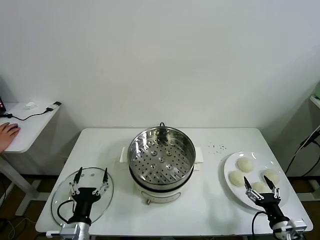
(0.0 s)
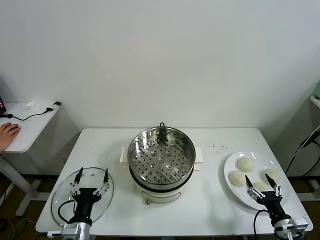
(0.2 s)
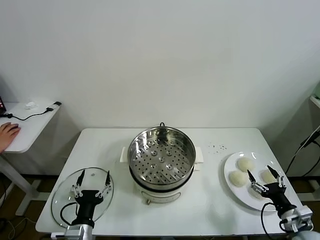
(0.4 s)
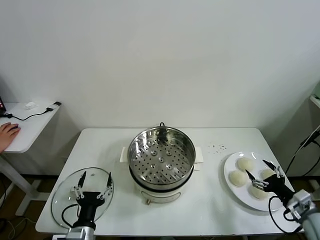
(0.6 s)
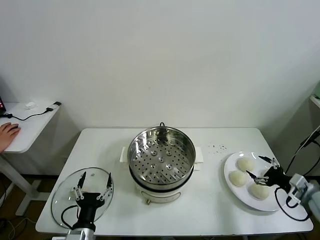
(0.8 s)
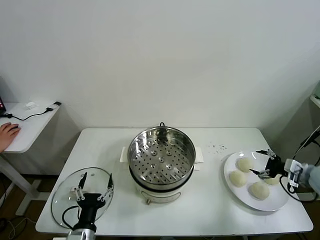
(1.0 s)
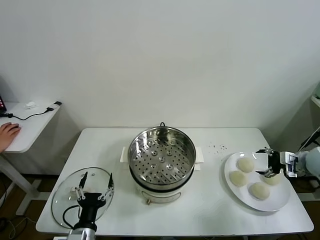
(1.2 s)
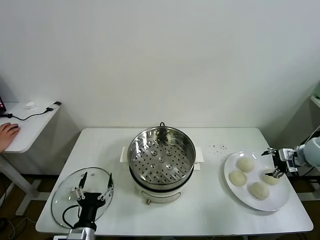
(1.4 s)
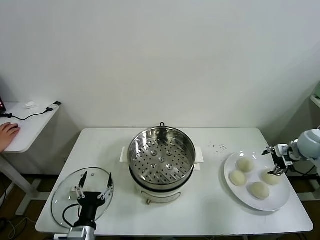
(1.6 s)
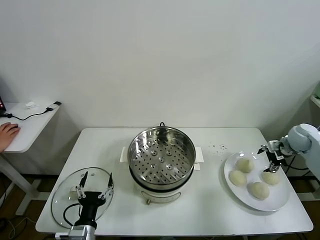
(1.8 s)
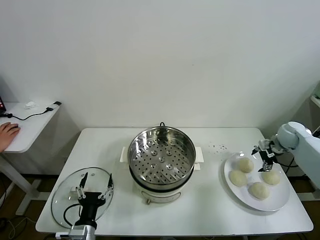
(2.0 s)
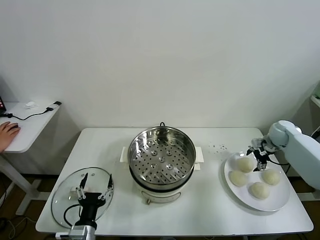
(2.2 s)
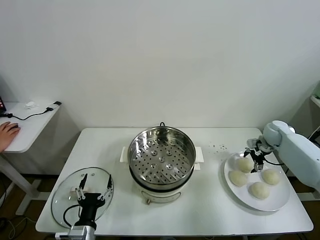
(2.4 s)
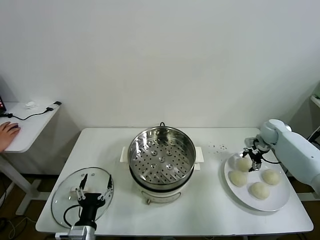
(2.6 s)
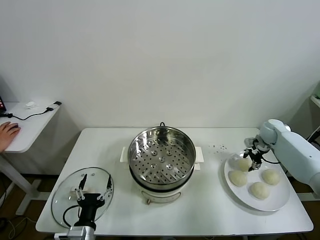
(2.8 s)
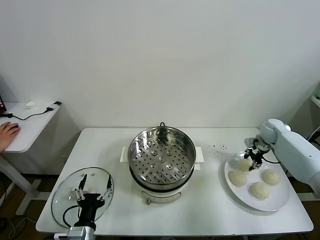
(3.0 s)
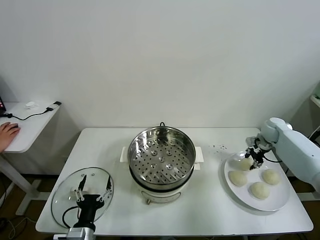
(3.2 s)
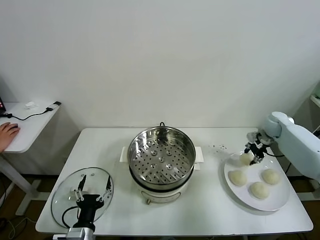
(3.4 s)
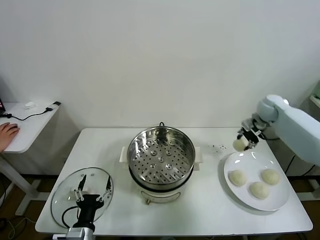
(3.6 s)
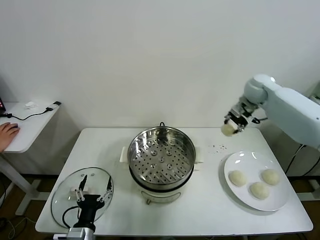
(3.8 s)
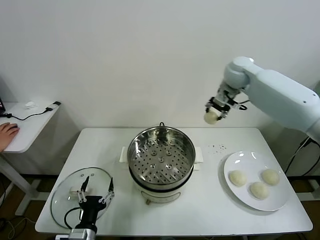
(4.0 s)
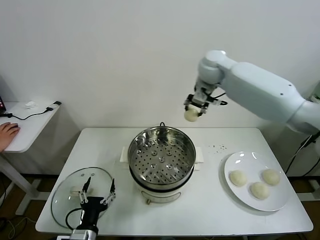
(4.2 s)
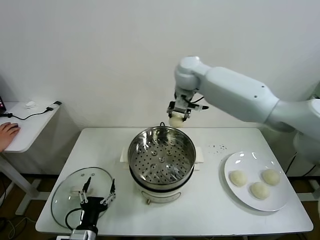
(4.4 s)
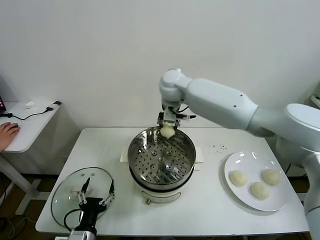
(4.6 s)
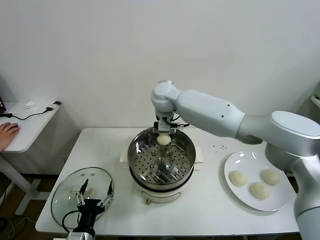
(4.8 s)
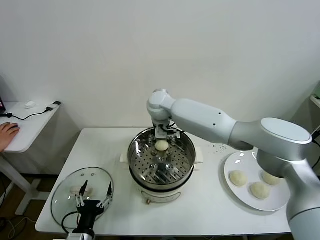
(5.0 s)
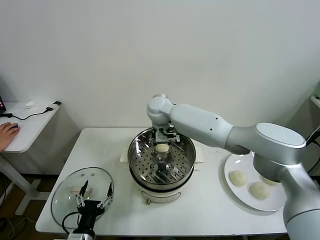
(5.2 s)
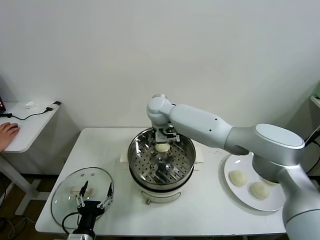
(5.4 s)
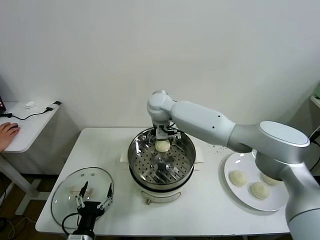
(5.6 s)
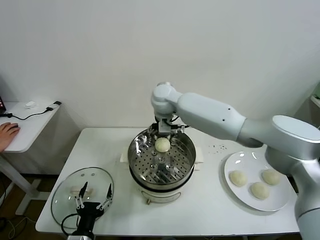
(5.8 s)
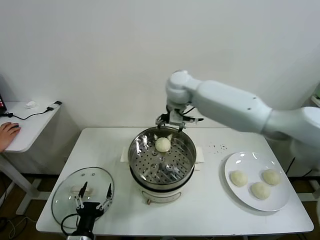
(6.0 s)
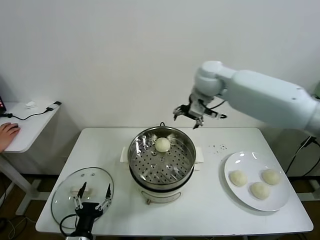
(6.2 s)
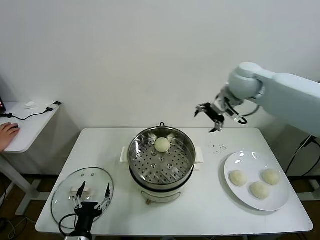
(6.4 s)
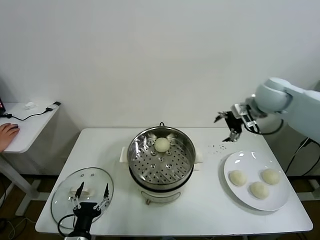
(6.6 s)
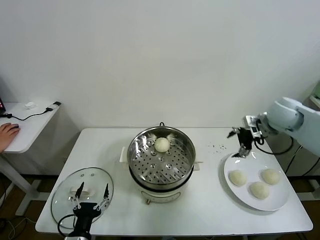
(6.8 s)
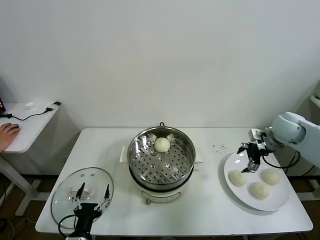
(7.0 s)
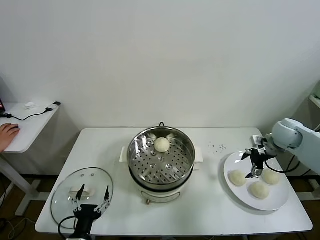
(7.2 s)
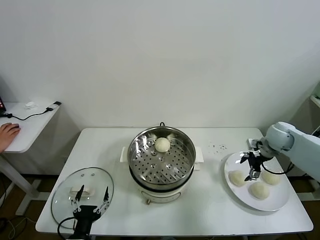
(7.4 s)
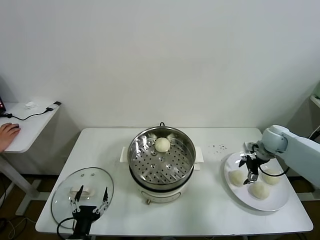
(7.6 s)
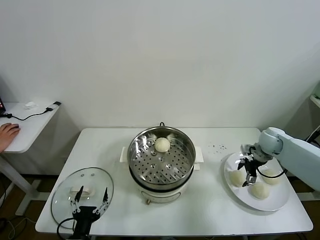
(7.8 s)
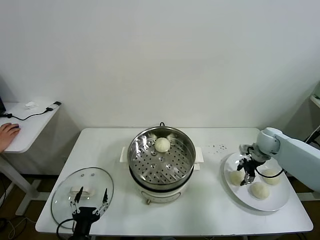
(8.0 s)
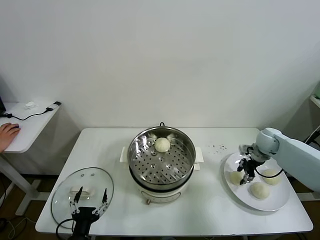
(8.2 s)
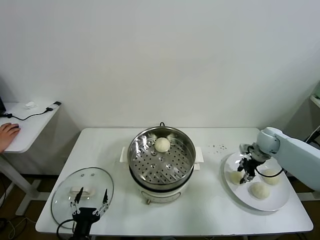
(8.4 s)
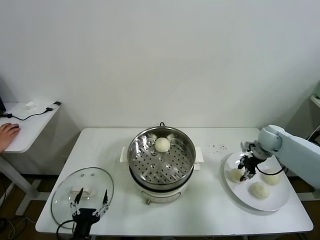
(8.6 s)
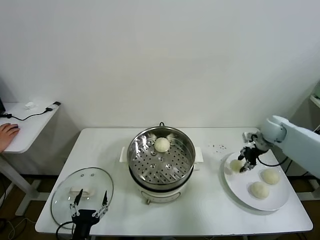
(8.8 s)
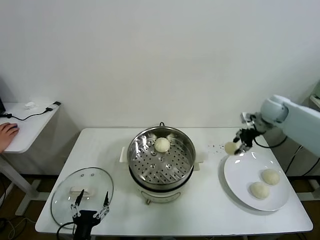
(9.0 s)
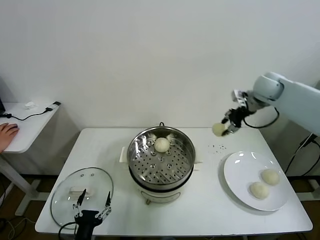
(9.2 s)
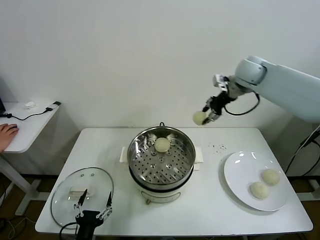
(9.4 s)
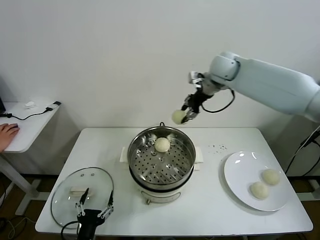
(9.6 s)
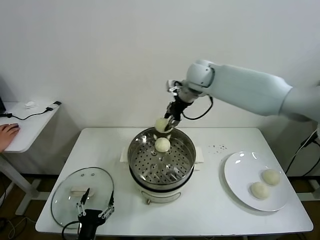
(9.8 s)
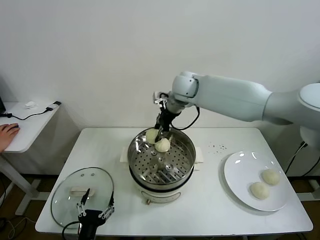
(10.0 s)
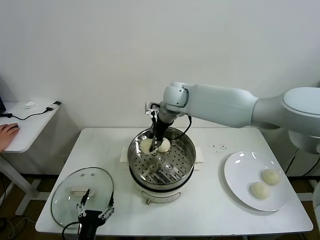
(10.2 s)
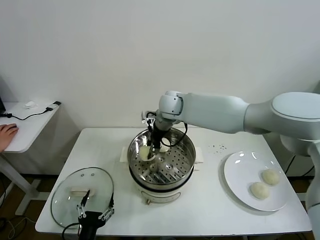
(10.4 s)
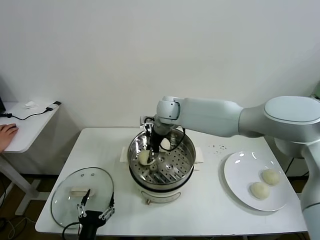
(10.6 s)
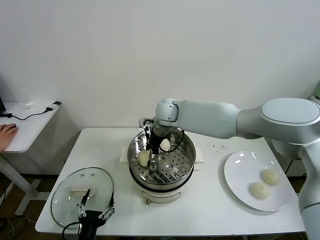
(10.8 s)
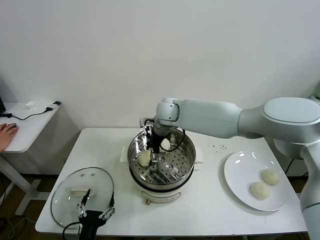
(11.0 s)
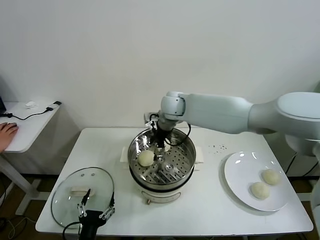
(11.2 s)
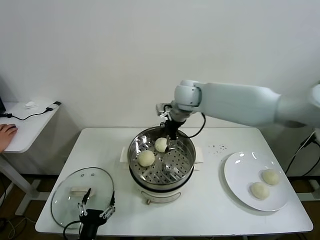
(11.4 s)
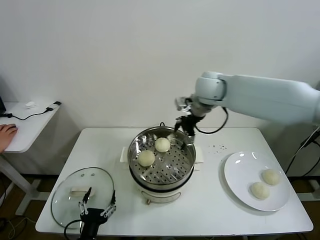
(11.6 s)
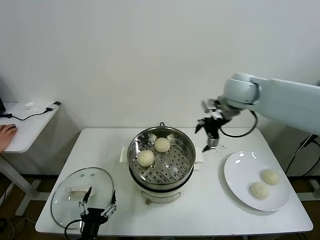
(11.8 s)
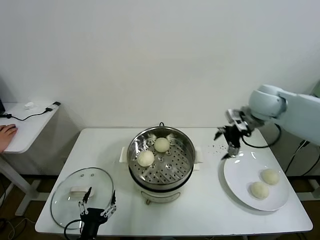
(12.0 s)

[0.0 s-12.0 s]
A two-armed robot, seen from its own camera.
Task of the whole recording: take steamed baozi put them in steamer.
Step, 0.0 to 2.8 s: Grasp the baozi in the plate with right gripper.
Step, 3.0 to 5.4 s: Place the baozi on the steamer with right gripper.
Step, 5.6 to 8.0 s: Grasp the baozi in the plate with right gripper.
Step, 8.2 to 11.0 s: Place the baozi on the steamer with right gripper.
1.6 to 3.0 s: The right gripper is displaced forward and to the left by approximately 10 cm, and closes up.
3.0 to 4.4 s: The right gripper moves to the left and upward, roughly 50 cm.
4.4 to 6.0 s: The right gripper travels downward and back again, approximately 10 cm each way, and opens up.
6.0 to 7.6 s: The right gripper travels to the right and downward by approximately 40 cm.
7.6 to 9.0 s: The right gripper goes some 15 cm upward and forward, and closes.
9.0 to 10.4 s: The right gripper travels to the left by some 35 cm.
10.4 to 12.0 s: The right gripper goes approximately 30 cm to the right, and opens up.

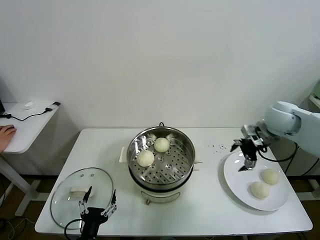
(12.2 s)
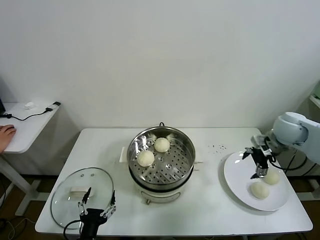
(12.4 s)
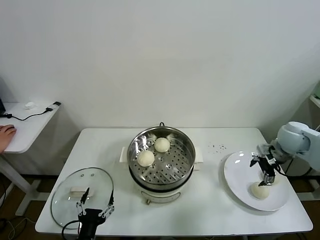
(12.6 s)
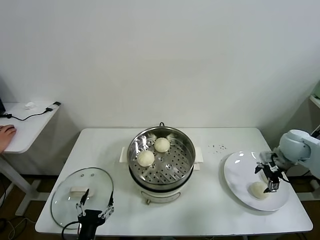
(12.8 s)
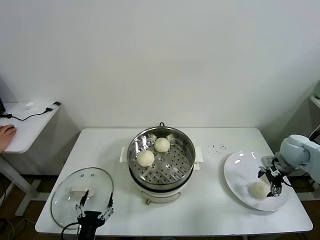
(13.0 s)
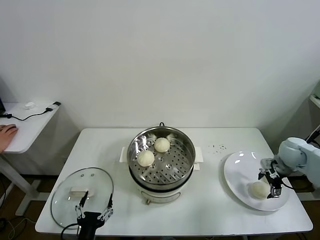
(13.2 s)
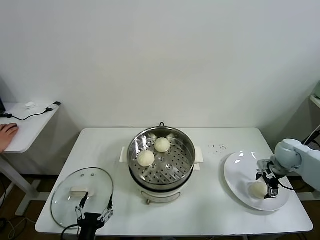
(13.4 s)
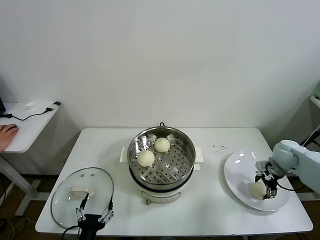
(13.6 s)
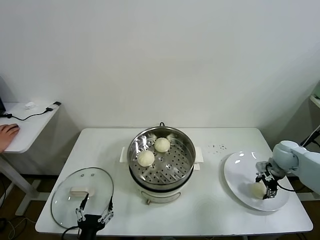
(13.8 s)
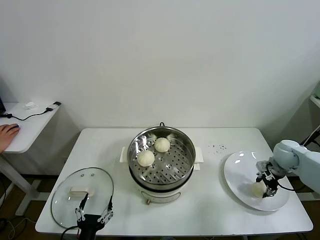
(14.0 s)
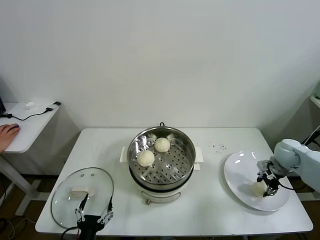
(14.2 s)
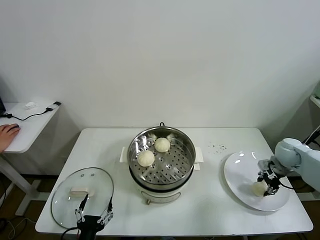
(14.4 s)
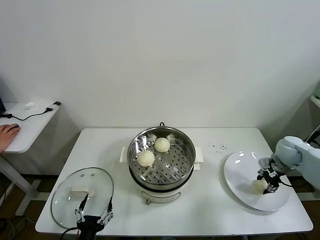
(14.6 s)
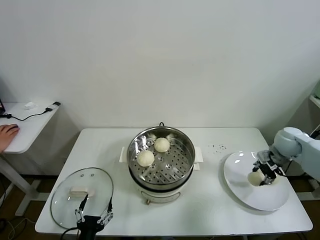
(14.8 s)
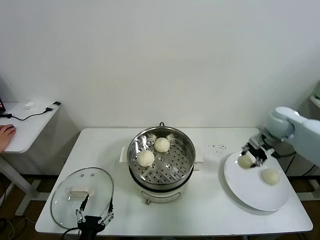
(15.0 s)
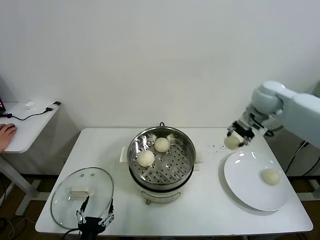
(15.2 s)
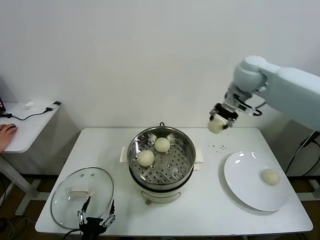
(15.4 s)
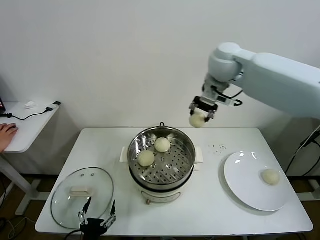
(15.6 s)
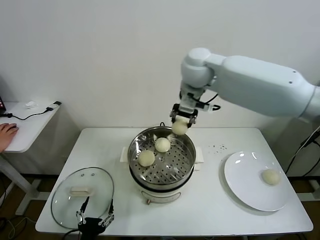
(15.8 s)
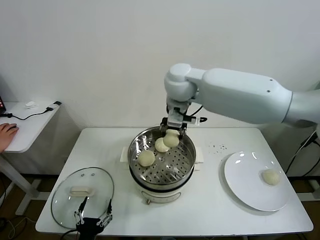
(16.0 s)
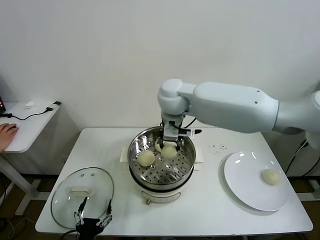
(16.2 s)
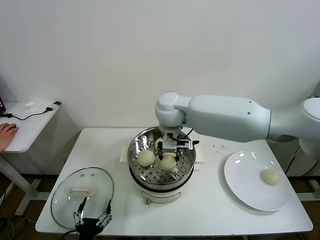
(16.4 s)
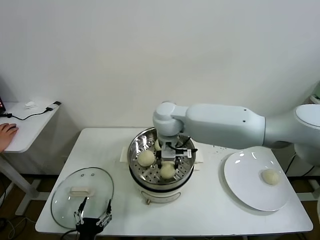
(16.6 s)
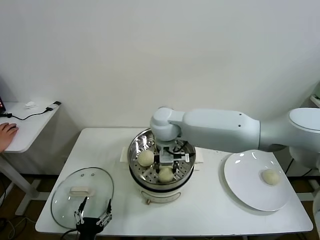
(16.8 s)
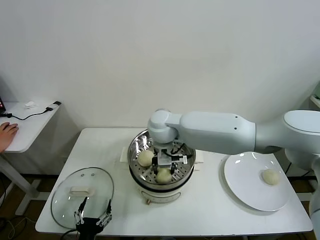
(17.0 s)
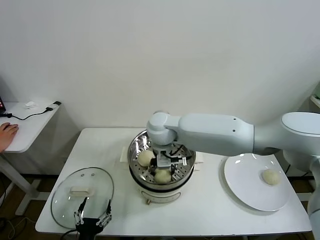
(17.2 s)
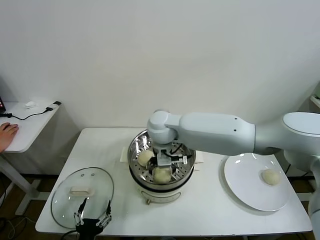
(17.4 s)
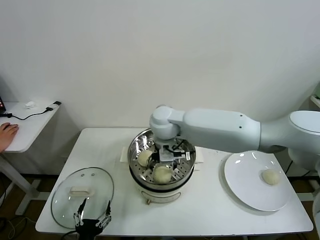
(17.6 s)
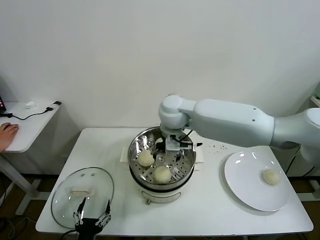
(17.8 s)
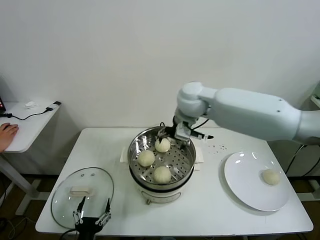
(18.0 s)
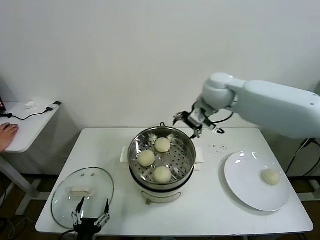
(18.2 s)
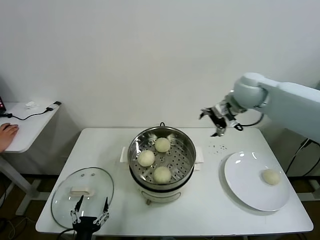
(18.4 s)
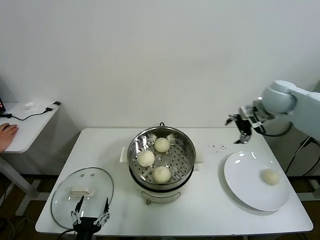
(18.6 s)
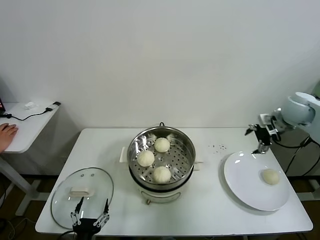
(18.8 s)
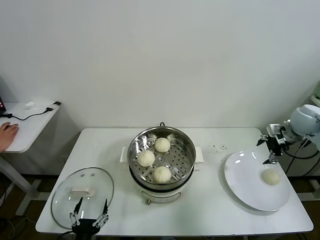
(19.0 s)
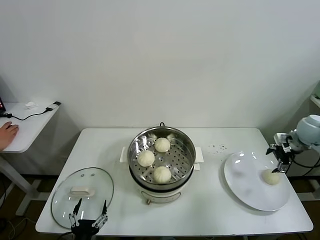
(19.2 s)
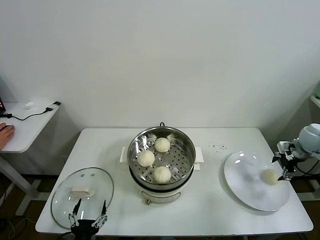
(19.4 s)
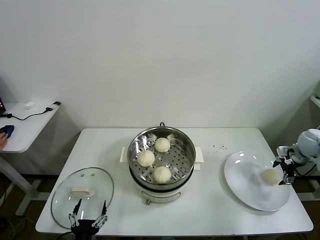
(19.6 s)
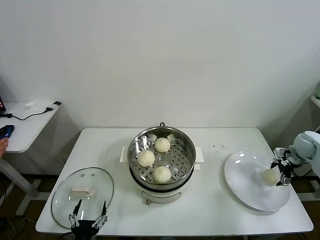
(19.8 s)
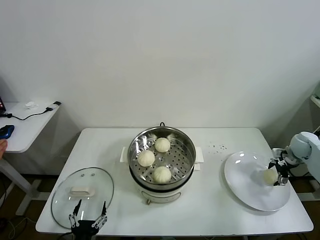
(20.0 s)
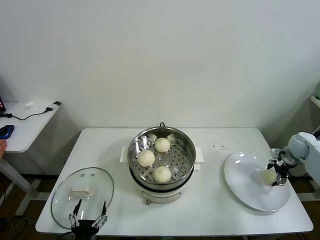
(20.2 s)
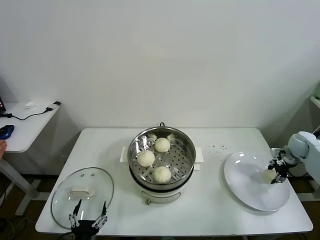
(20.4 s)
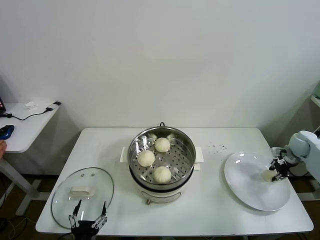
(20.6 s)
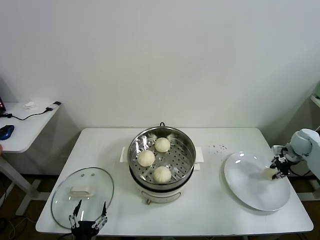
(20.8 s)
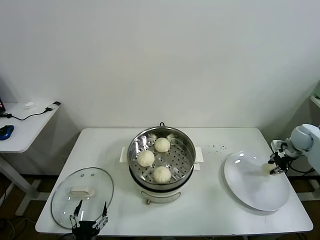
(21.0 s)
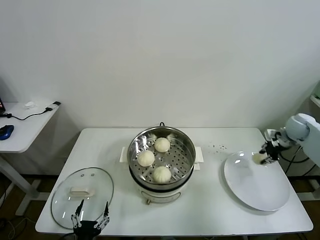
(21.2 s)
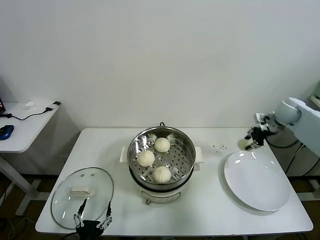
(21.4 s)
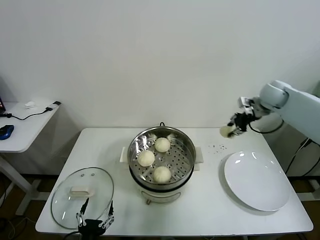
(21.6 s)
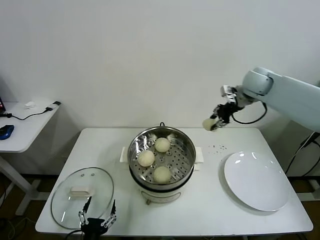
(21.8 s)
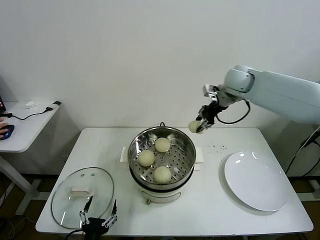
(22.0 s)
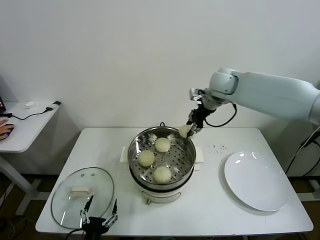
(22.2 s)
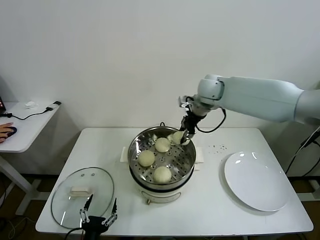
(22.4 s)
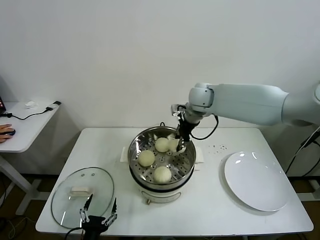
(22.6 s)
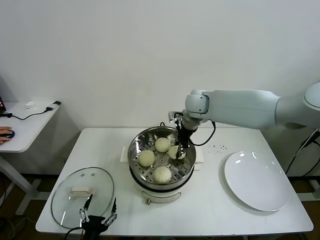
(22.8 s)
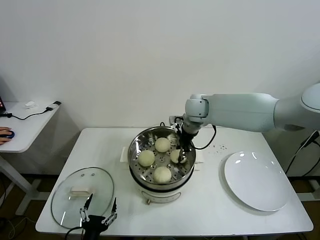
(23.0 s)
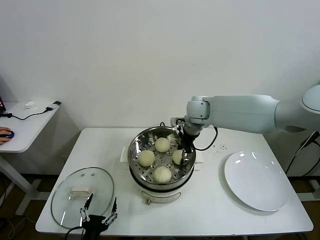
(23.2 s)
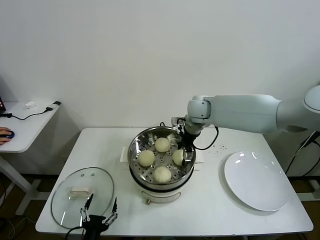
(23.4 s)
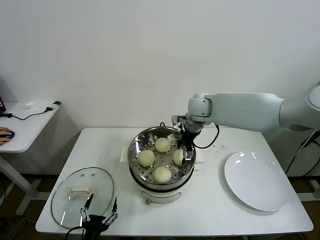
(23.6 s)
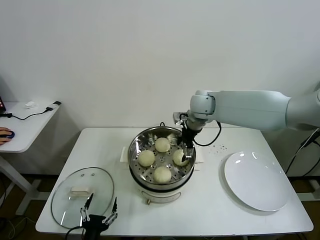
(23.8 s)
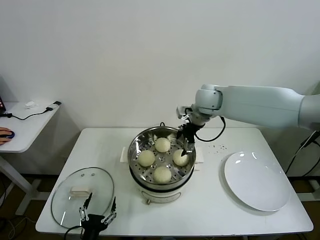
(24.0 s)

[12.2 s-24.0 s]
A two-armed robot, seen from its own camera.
Task of the whole recording: take steamed baozi put them in steamer.
Step, 12.2 to 13.8 s: Grasp the baozi in the plate with right gripper.
Step, 14.0 to 17.4 s: Place the baozi on the steamer with right gripper.
Step, 17.6 to 20.6 s: Grasp the baozi in the plate with right gripper.
Step, 20.8 to 23.6 s: Place the baozi on the steamer with right gripper.
12.2 to 13.6 s: The right gripper moves downward and to the right, roughly 15 cm.
13.6 to 15.2 s: The right gripper moves upward and to the left, approximately 25 cm, and closes up.
15.2 to 16.6 s: The right gripper moves to the left, about 30 cm.
16.6 to 18.2 s: The right gripper heads to the right and upward, covering some 20 cm, and opens its fingers.
18.2 to 19.6 s: The right gripper travels to the right and downward by roughly 40 cm.
19.6 to 21.0 s: The right gripper closes.
21.0 to 22.6 s: The right gripper shifts approximately 40 cm to the left.
22.6 to 24.0 s: The right gripper opens.
